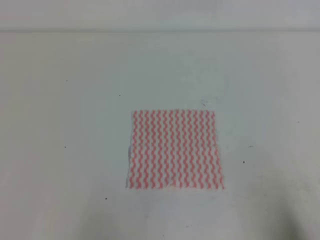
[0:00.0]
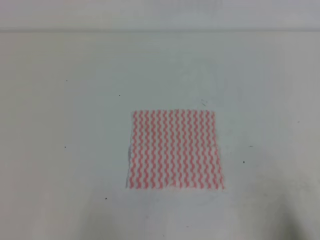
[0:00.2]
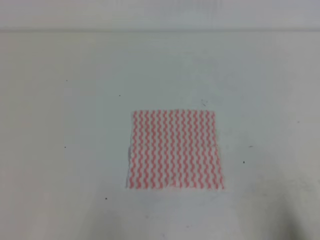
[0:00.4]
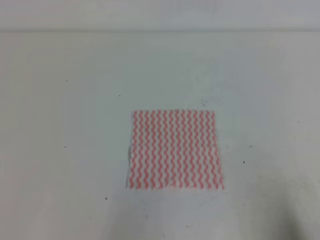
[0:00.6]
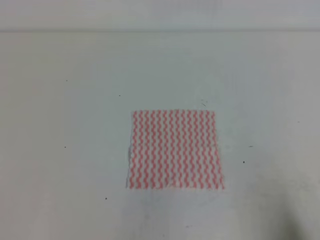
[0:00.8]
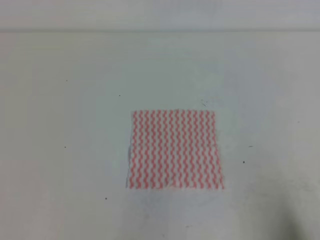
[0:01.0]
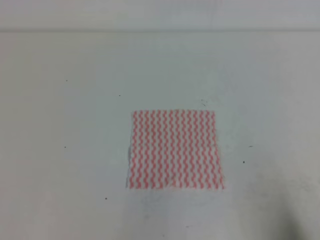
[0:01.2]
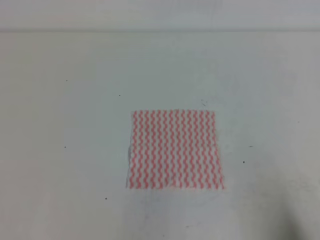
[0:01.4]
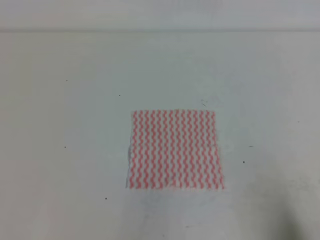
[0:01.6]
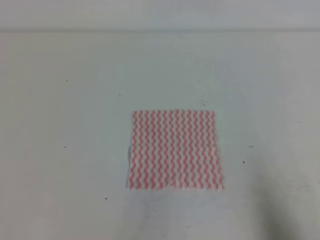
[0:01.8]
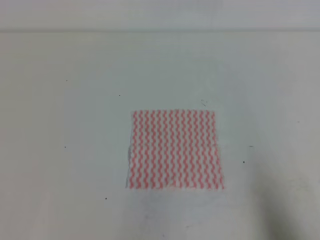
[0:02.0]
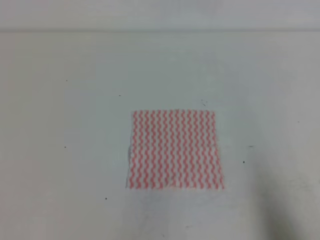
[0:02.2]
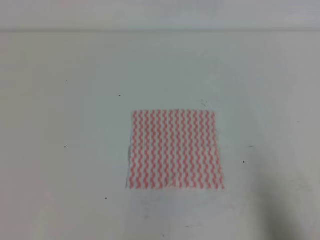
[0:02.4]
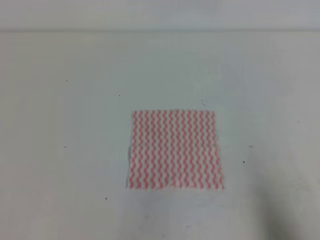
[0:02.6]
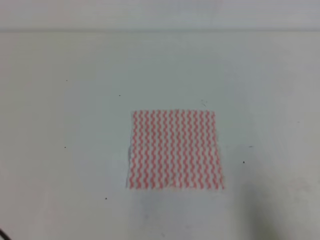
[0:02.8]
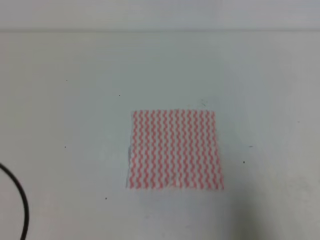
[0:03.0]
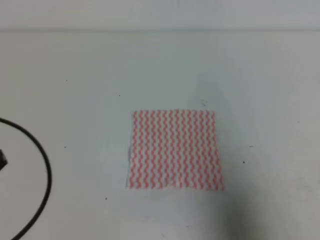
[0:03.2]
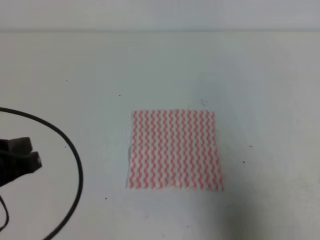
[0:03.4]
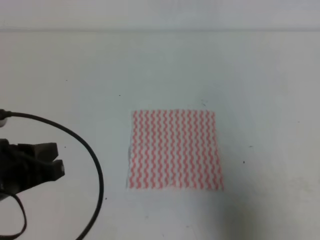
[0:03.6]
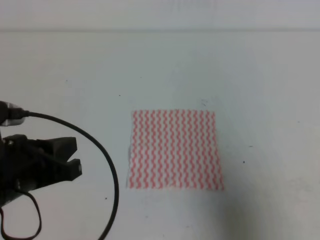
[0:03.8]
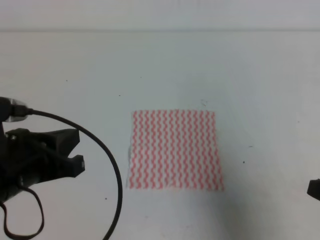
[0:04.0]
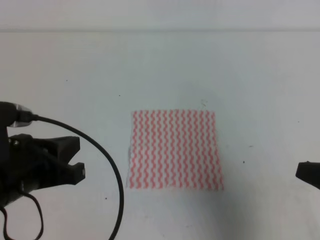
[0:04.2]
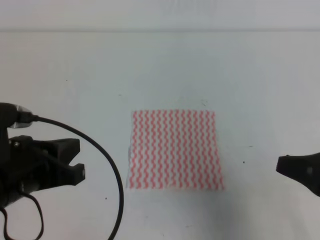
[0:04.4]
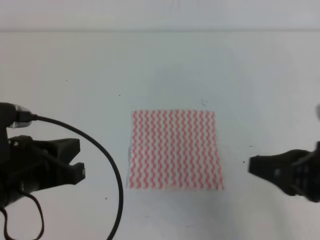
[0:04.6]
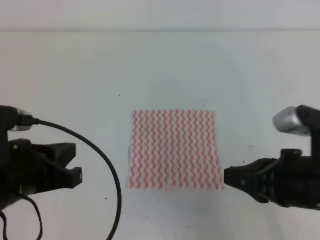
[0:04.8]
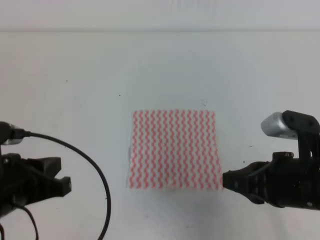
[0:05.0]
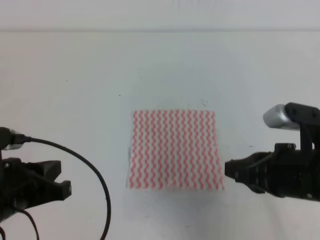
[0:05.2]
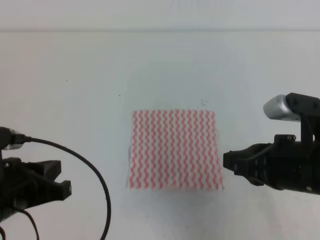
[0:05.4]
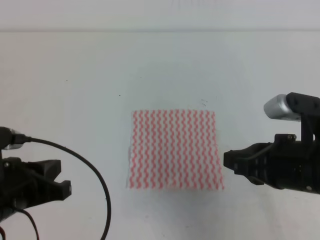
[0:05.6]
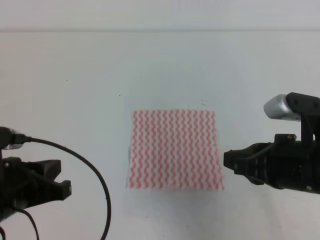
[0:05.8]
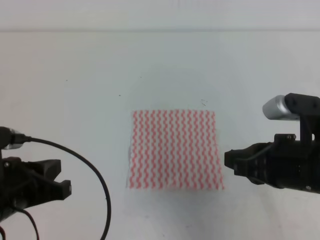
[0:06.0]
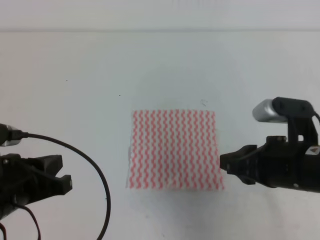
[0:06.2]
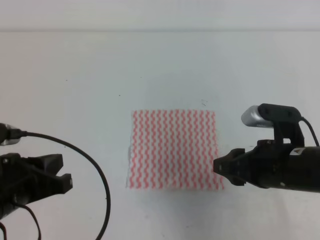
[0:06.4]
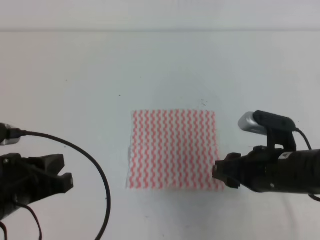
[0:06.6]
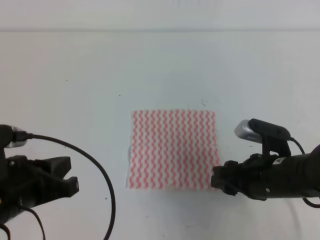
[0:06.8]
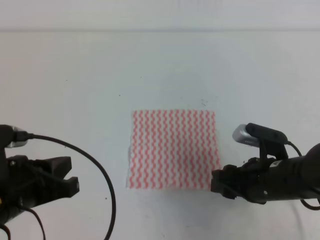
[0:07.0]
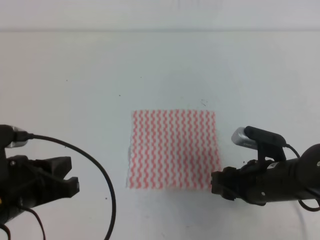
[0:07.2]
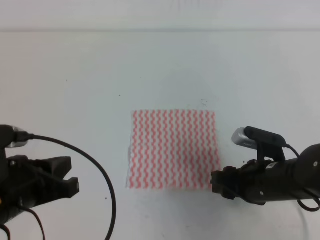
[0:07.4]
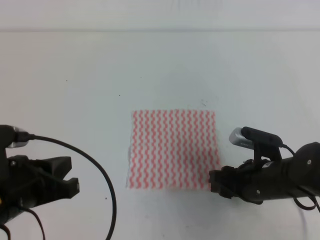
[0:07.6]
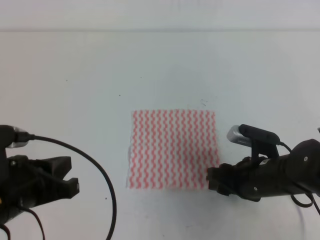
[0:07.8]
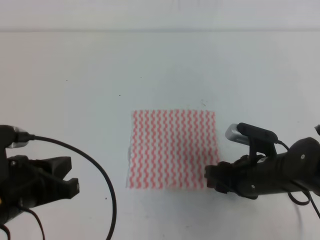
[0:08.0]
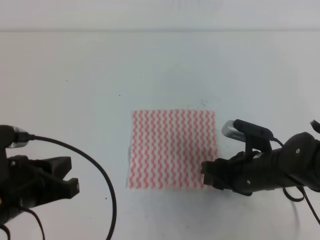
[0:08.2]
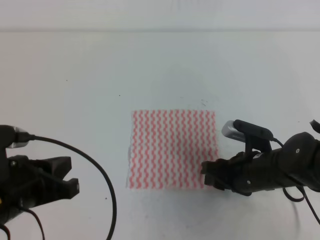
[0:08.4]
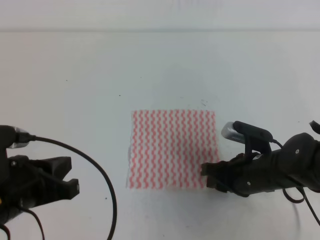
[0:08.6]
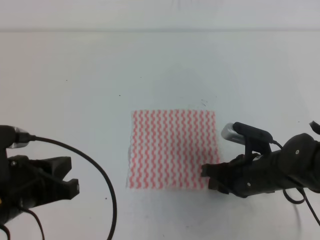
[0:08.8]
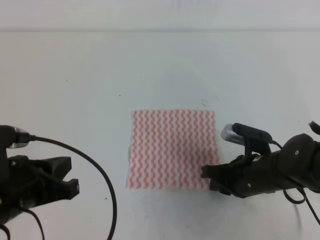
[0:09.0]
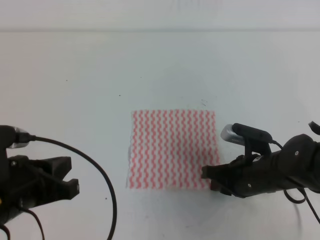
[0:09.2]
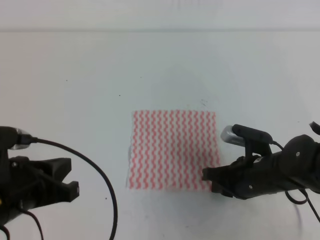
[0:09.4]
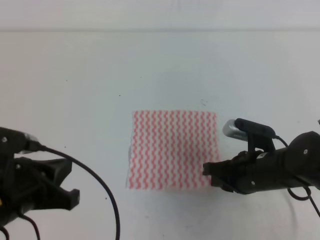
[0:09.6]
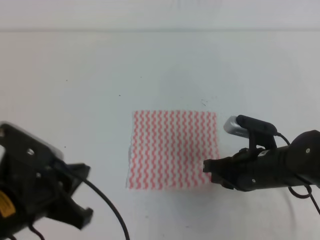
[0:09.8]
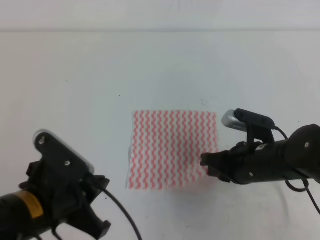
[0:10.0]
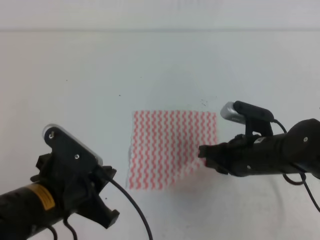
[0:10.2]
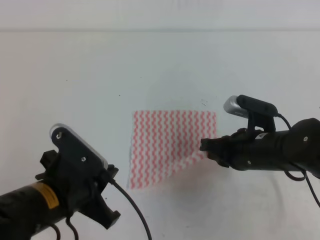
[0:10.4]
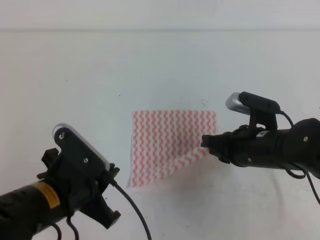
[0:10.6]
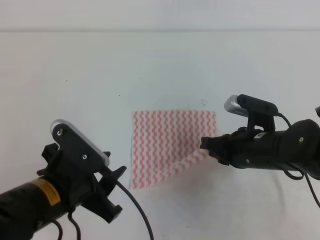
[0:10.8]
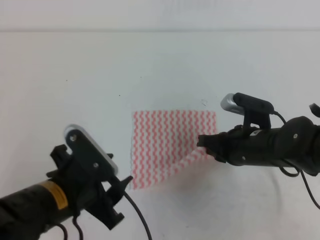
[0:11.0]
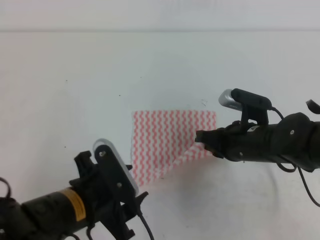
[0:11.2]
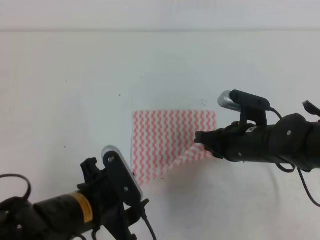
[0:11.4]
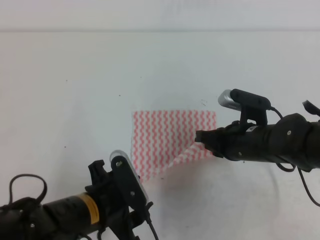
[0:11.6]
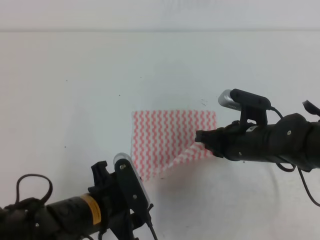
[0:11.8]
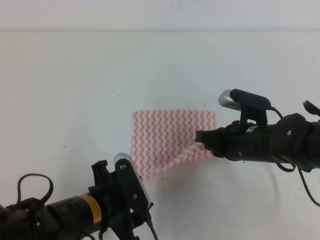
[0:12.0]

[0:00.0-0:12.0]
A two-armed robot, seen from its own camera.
0:01.6 to 0:03.0: The left gripper is displaced forward by roughly 5 cm. The right gripper travels upward by approximately 10 cm.
0:03.0 to 0:04.4: The right gripper shifts roughly 10 cm forward and to the left; the left gripper is displaced to the right and forward by approximately 10 cm.
0:04.4 to 0:06.0: The right gripper heads to the left, covering roughly 5 cm.
0:06.0 to 0:07.6: The right gripper shifts approximately 10 cm downward and forward, and opens its fingers.
0:07.6 to 0:09.0: The right gripper closes up.
0:09.0 to 0:10.4: The left gripper is displaced to the right by about 5 cm.
0:10.4 to 0:12.0: The left gripper travels downward by some 5 cm, and opens.

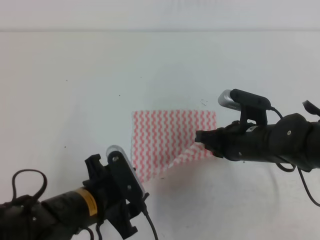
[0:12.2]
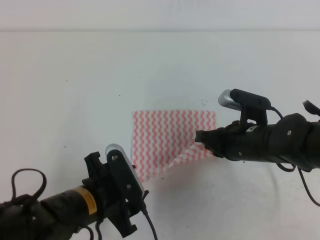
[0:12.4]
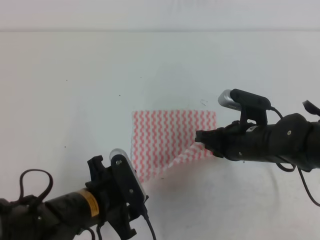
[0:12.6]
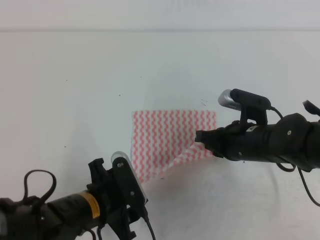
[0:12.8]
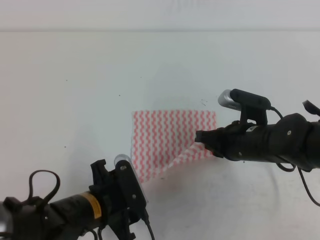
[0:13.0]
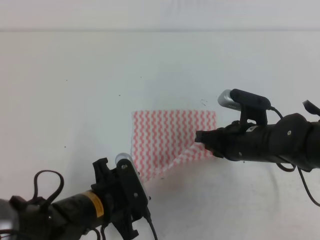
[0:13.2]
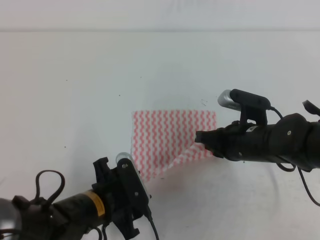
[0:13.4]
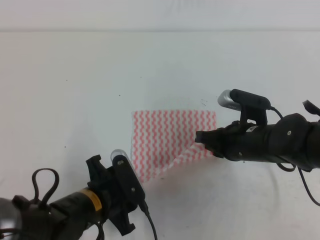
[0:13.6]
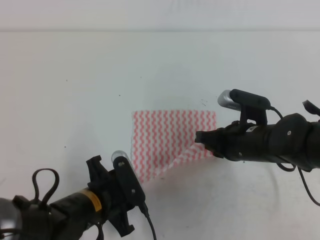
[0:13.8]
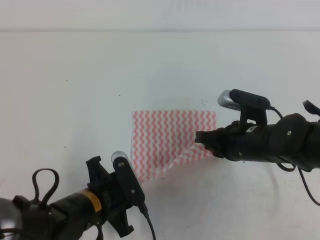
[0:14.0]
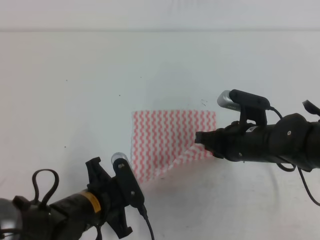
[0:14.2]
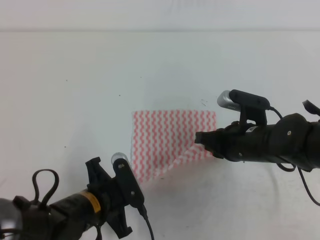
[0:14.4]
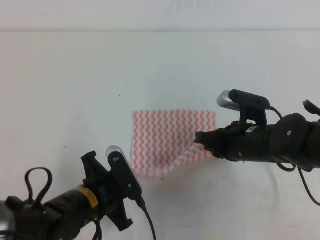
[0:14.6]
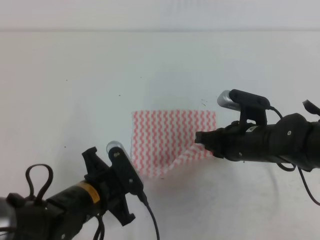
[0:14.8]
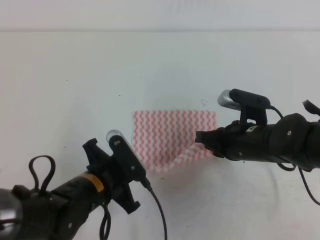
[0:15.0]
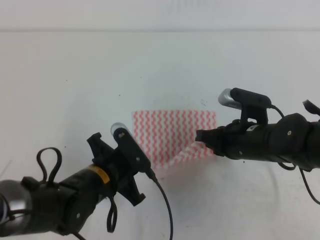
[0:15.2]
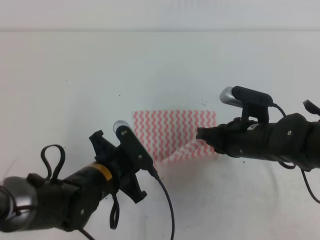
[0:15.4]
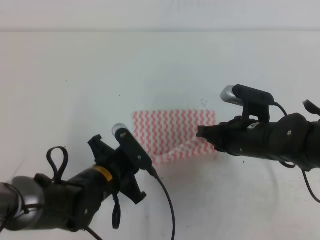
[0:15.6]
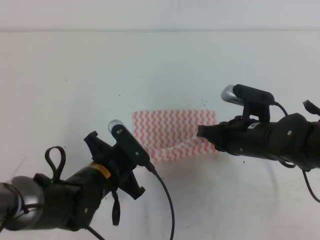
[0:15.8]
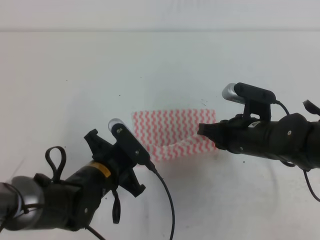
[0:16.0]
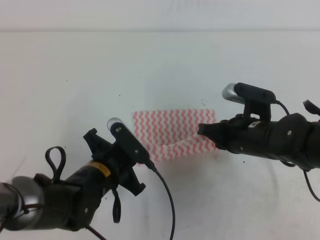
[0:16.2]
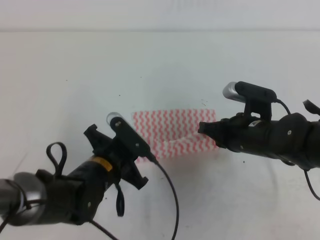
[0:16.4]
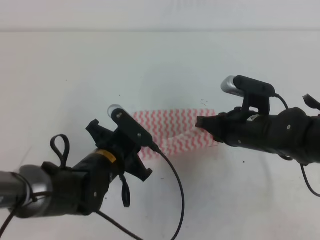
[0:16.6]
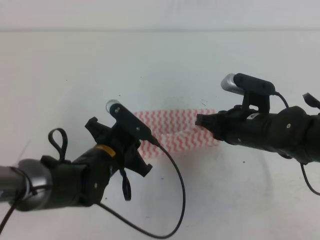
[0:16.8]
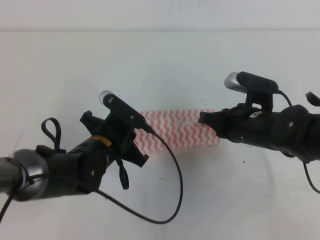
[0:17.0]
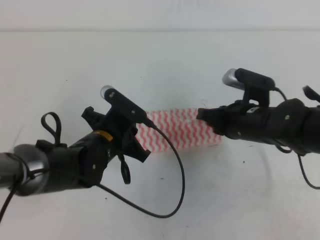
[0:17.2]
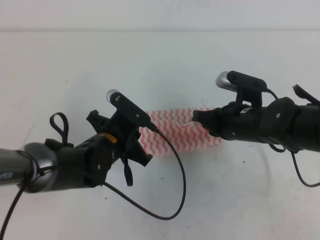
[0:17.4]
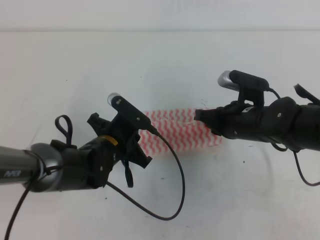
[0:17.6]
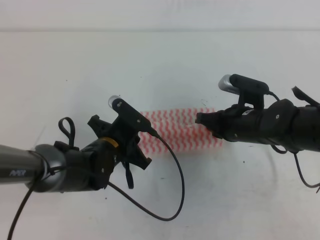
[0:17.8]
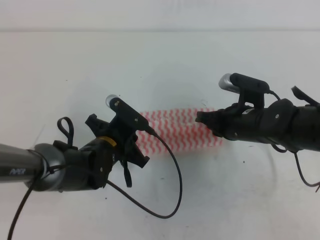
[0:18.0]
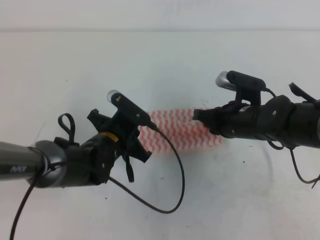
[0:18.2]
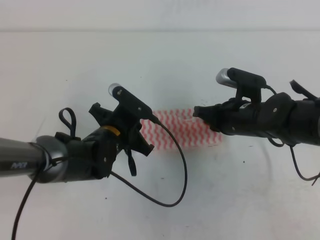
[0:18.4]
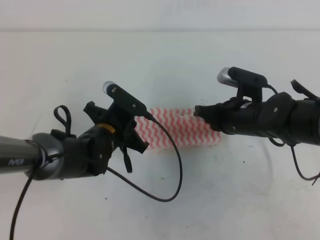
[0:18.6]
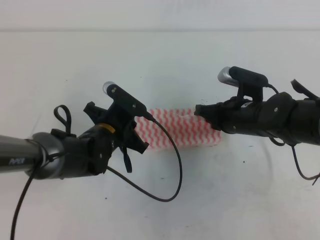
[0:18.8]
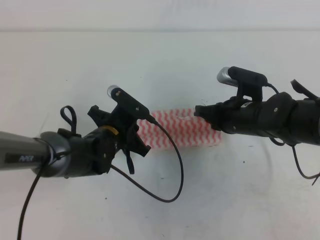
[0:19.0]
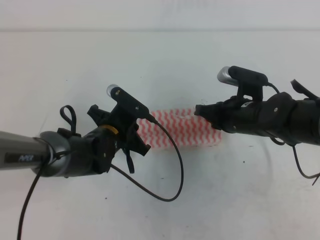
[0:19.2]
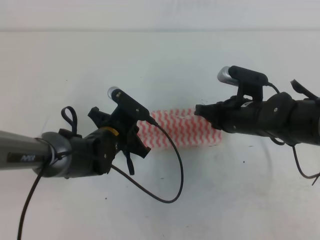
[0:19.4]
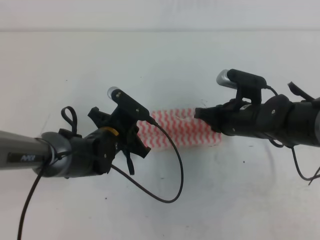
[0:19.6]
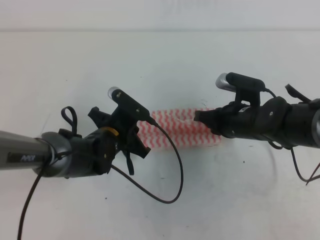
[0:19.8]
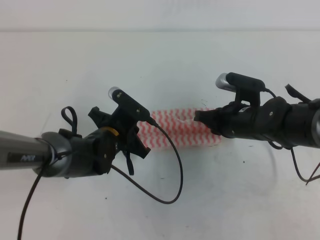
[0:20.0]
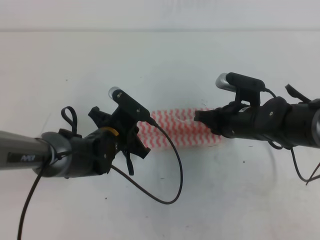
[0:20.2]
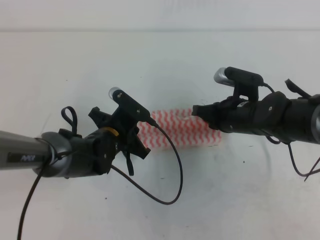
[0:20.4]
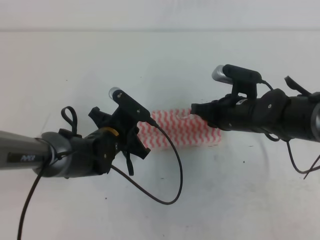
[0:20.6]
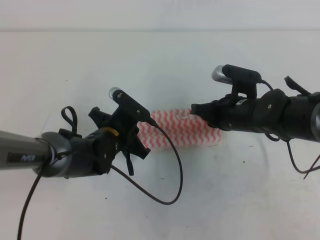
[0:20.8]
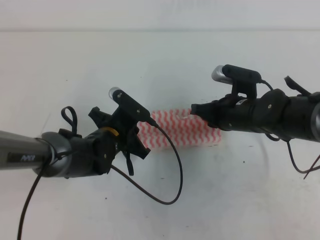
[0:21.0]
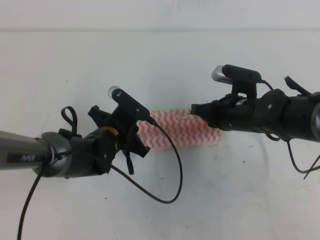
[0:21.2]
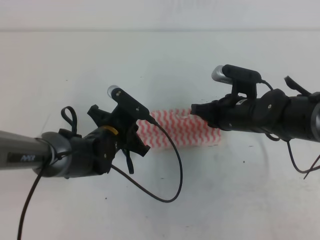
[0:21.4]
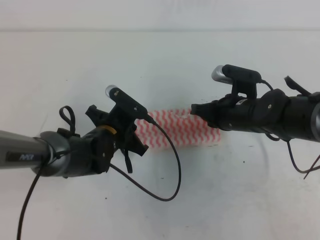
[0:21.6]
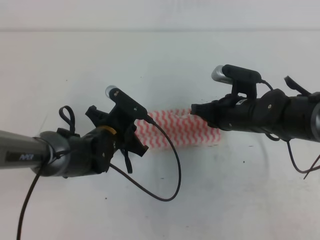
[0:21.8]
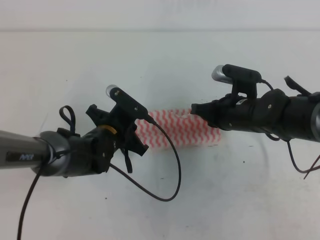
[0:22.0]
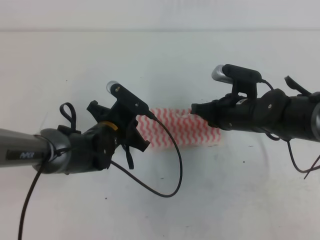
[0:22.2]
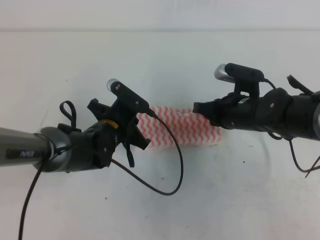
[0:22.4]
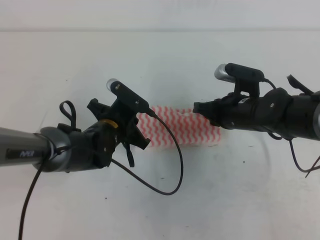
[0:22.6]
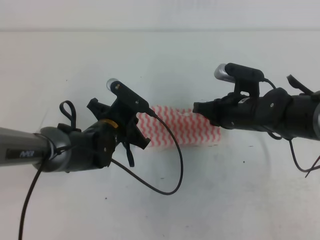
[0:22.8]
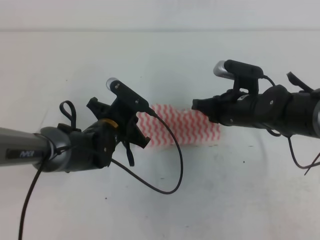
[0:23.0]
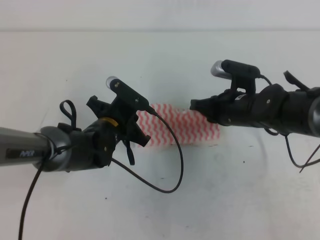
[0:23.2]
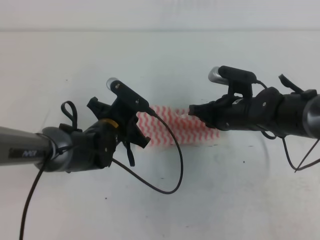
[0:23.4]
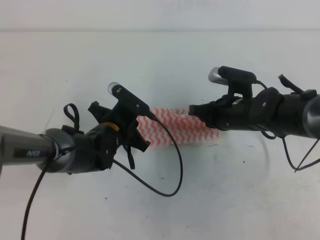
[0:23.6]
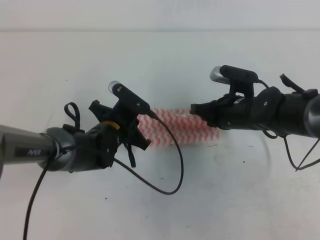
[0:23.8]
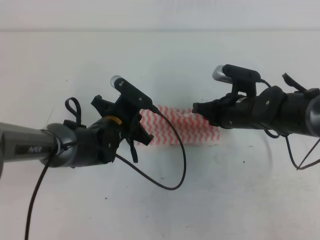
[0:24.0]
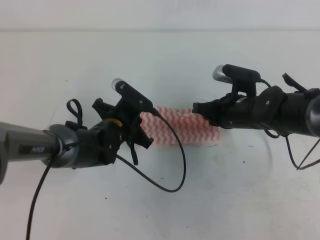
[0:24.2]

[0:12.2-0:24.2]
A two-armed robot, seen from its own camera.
0:12.2 to 0:13.8: The left gripper closes.
0:13.8 to 0:15.2: The left gripper closes up.
0:15.2 to 0:16.6: The grippers stay close to where they were, moving slightly.
0:18.2 to 0:19.8: There are only small adjustments of the grippers.
0:19.8 to 0:21.2: The two grippers keep their place.
0:21.2 to 0:22.6: Neither gripper changes place.
0:22.6 to 0:24.2: The grippers move only a little.
